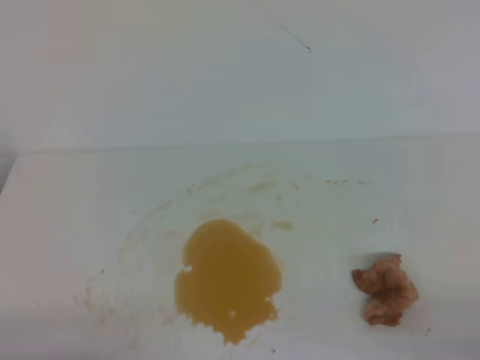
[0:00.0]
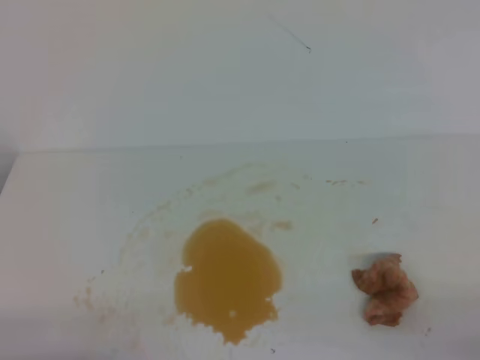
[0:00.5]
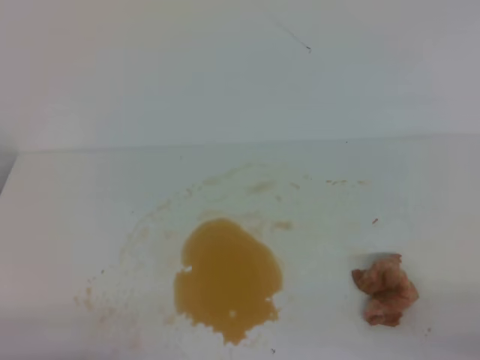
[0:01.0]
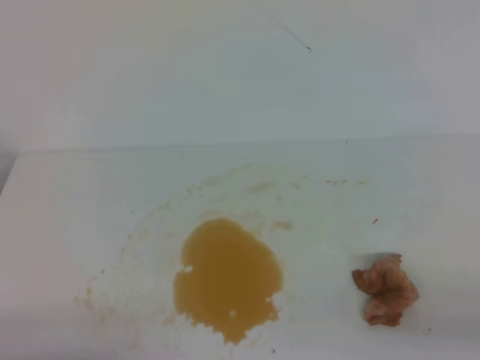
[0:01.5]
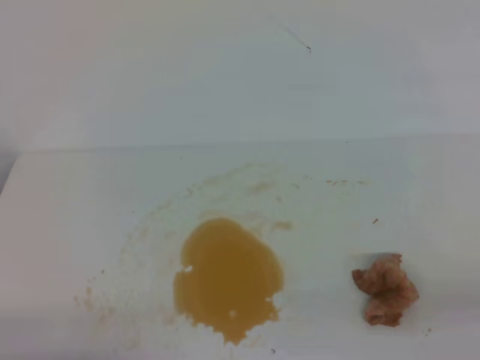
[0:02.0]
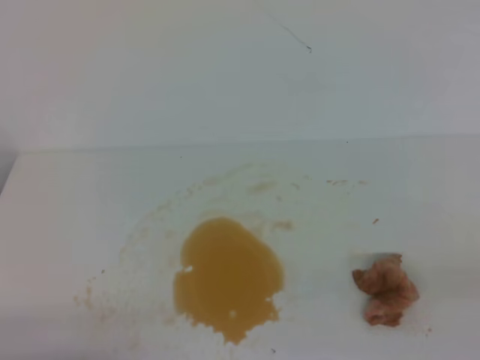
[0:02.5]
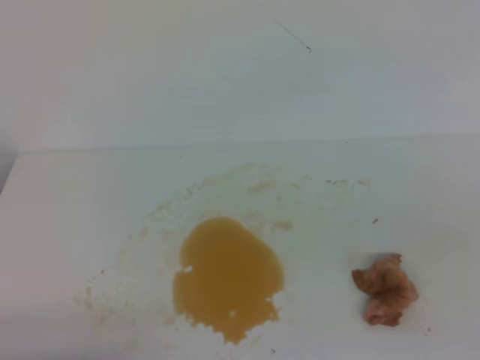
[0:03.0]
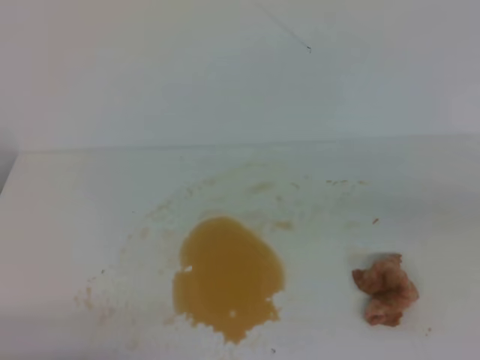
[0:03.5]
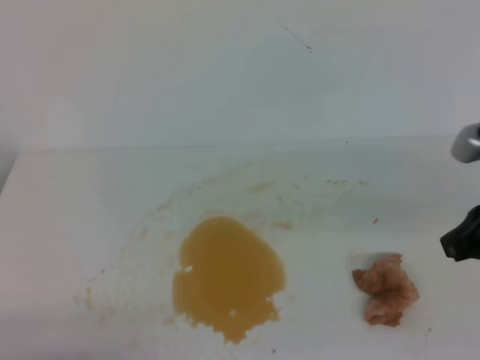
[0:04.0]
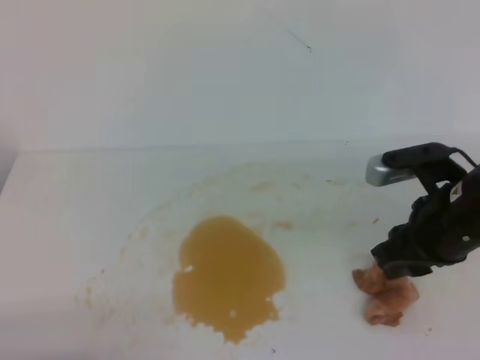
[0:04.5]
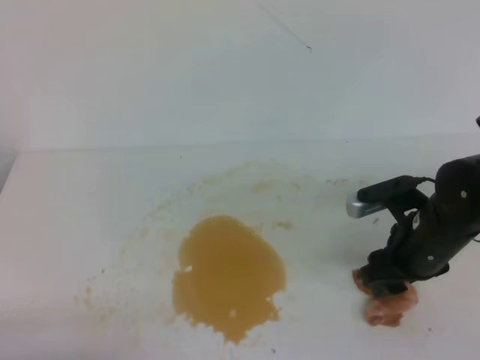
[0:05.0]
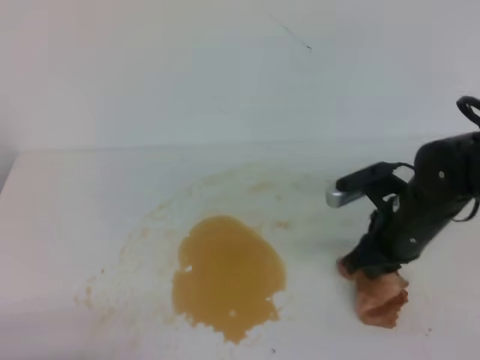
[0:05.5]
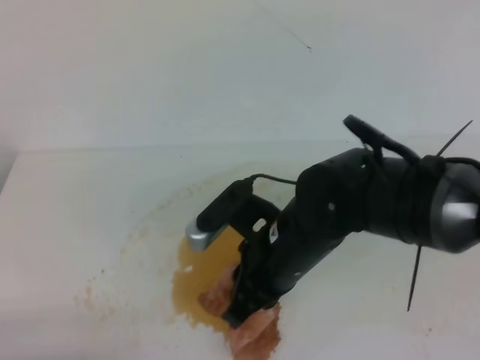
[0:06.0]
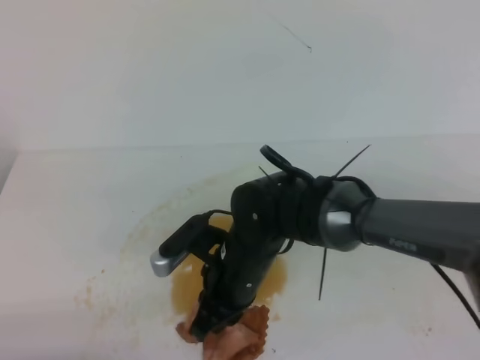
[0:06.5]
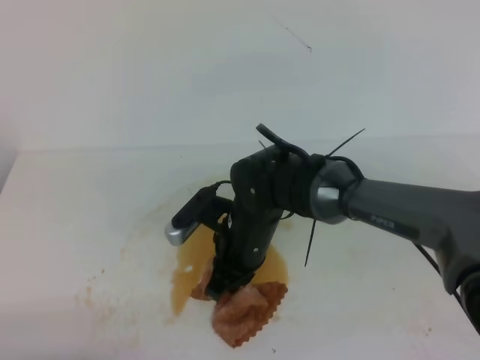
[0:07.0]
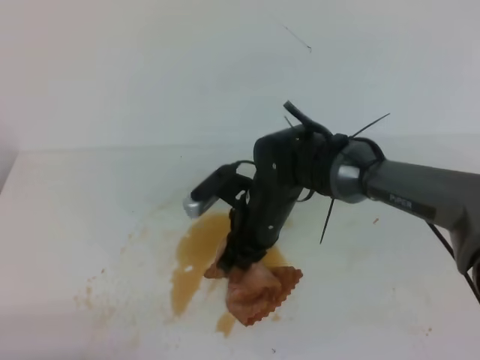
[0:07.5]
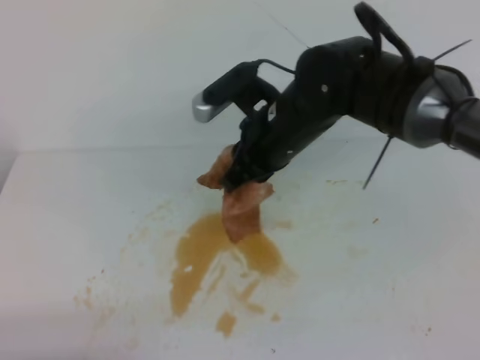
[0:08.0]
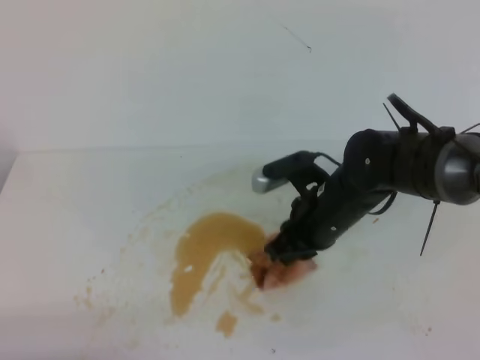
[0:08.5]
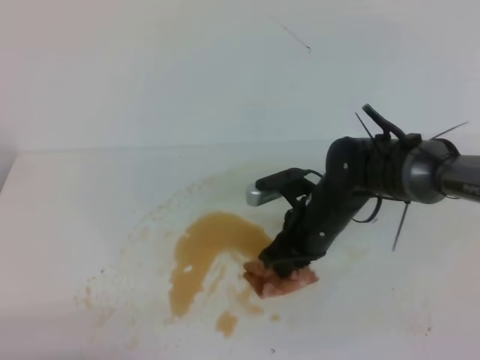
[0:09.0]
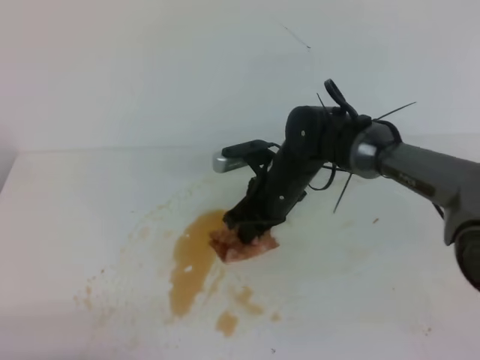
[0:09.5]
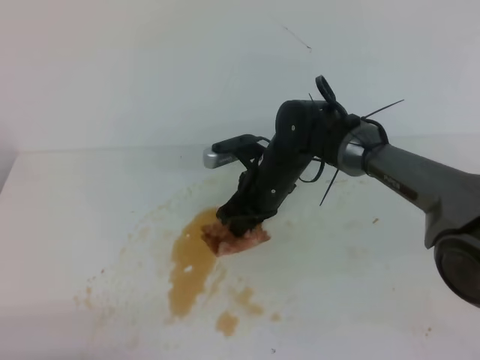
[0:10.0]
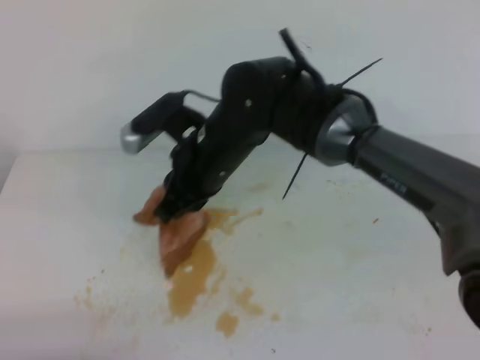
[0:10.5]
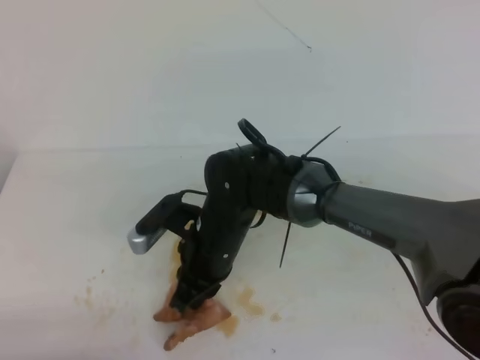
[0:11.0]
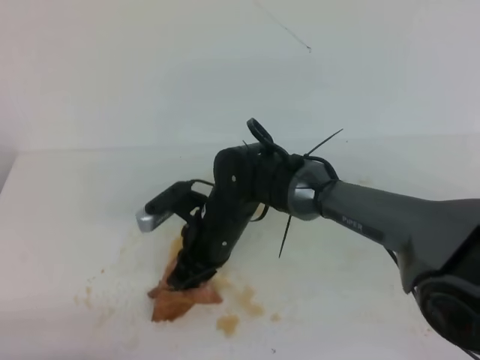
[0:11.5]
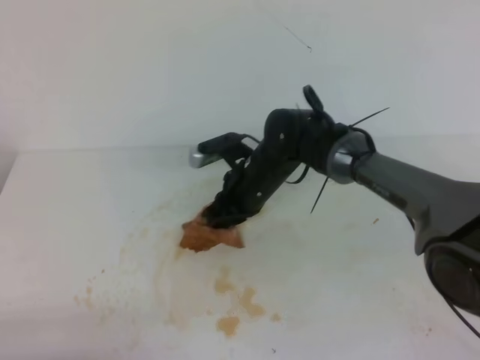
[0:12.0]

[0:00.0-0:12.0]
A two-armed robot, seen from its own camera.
0:02.0 to 0:04.0: The right gripper shifts approximately 20 cm forward, upward and to the left.
0:04.0 to 0:06.0: The right gripper goes some 20 cm to the left, and opens and closes again.
0:06.0 to 0:08.0: The right gripper goes about 10 cm forward.
0:08.0 to 0:10.0: The right gripper travels downward and forward by some 10 cm.
0:10.0 to 0:12.0: The right gripper moves some 10 cm upward and comes back.

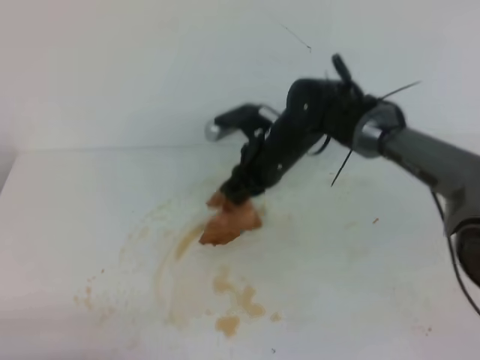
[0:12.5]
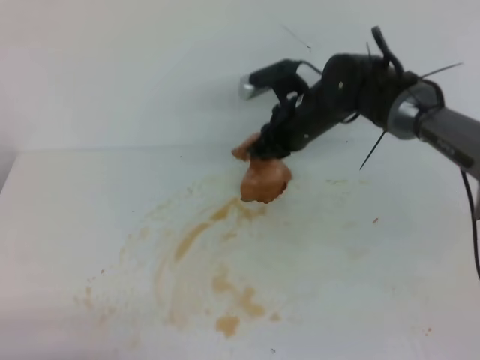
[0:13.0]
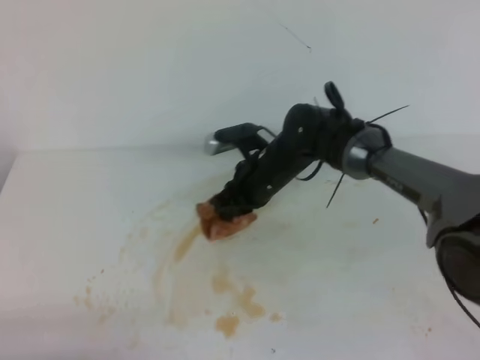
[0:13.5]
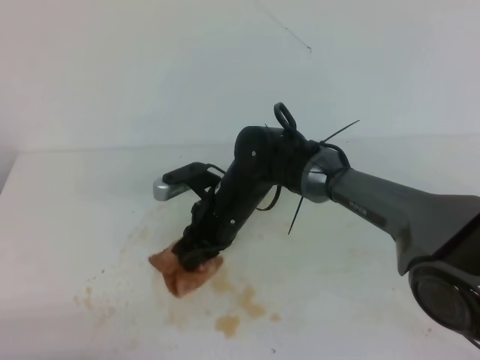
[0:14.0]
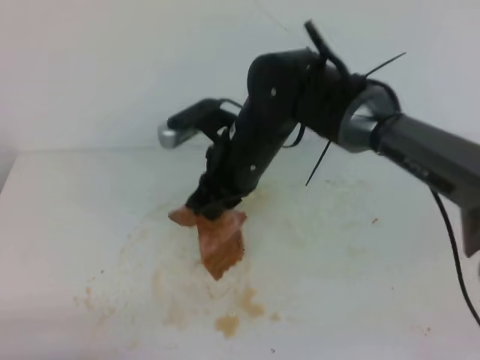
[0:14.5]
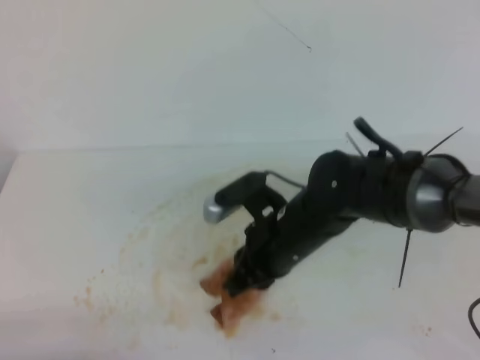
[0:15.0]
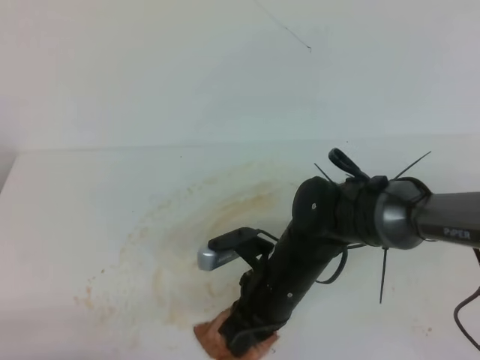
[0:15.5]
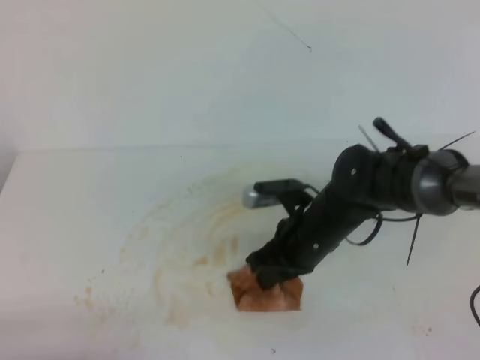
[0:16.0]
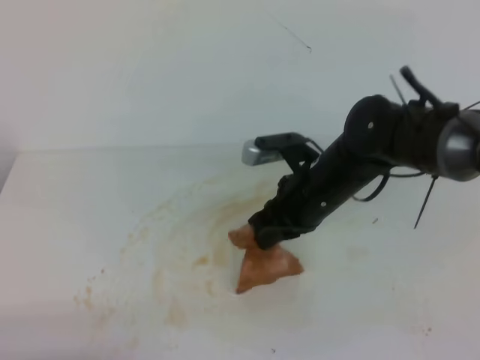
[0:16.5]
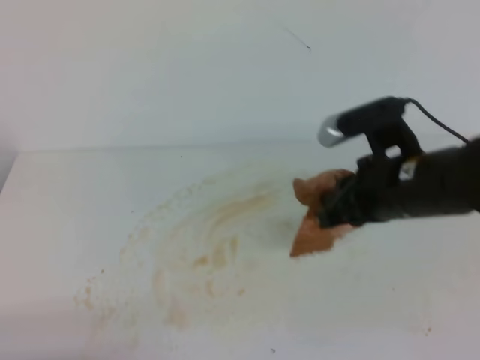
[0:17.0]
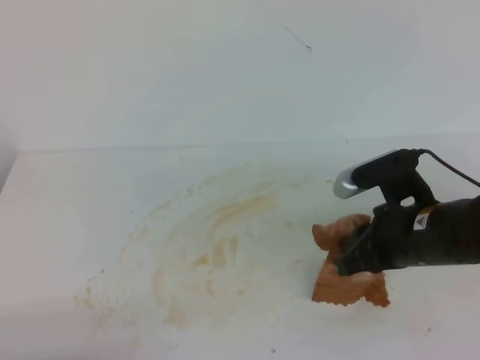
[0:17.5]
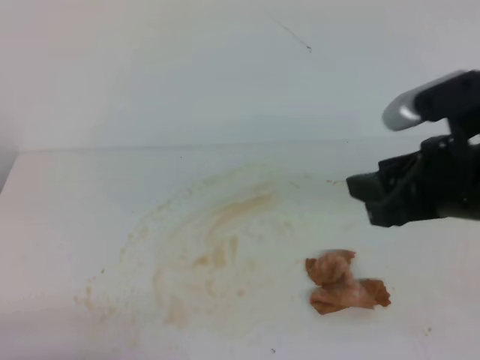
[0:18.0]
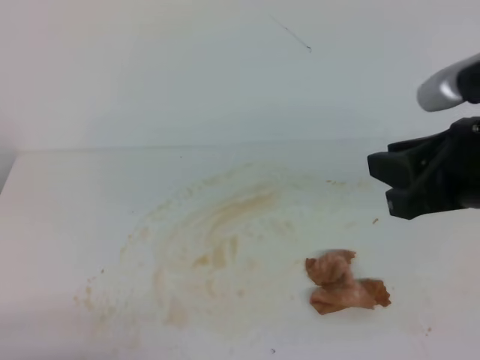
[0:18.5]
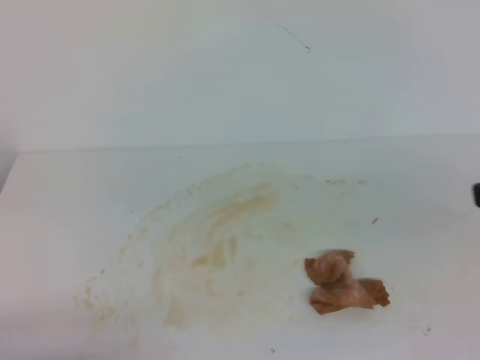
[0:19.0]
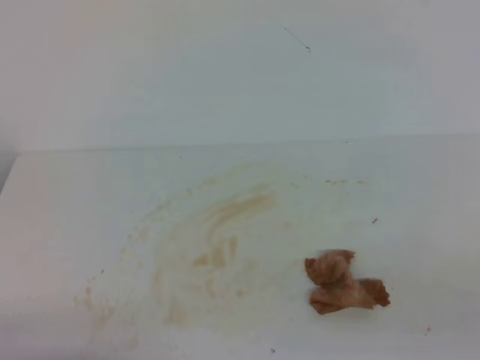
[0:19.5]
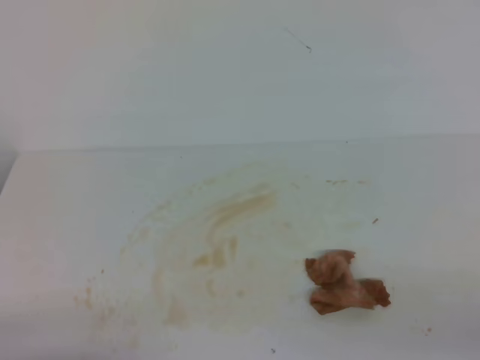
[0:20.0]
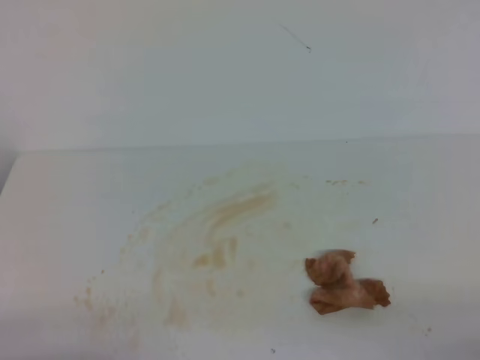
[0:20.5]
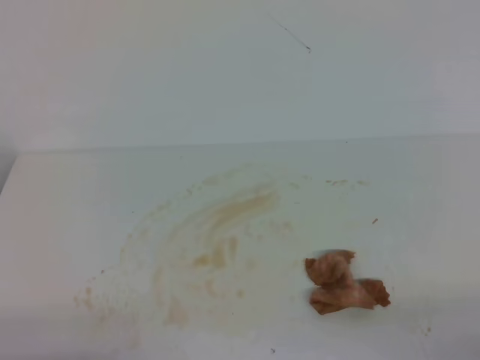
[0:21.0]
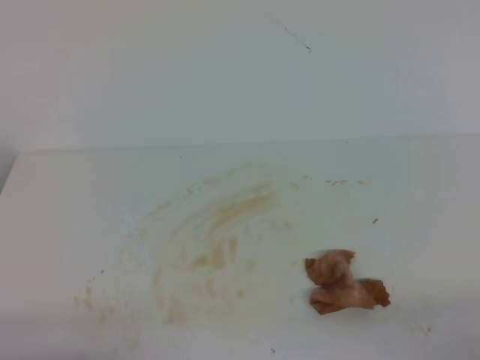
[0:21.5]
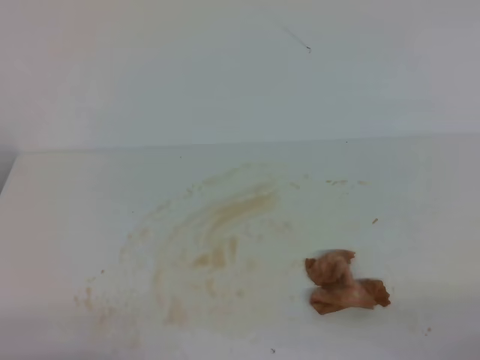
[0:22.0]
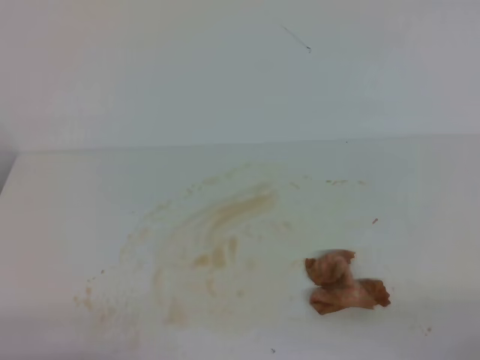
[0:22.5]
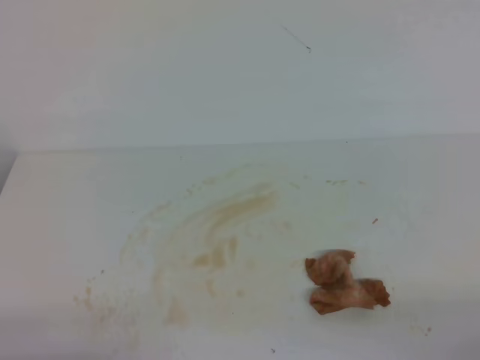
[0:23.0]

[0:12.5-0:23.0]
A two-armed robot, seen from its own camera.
0:12.5 to 0:14.5: The right gripper travels backward by some 10 cm, and goes downward and returns, some 10 cm each way.
0:14.5 to 0:16.5: The right gripper moves to the right, approximately 10 cm.
0:16.5 to 0:19.0: The right gripper shifts roughly 30 cm backward, to the right and upward, and opens up.
0:19.0 to 0:21.0: The right gripper goes about 20 cm downward, backward and to the right, and closes.
0:21.0 to 0:23.0: Both grippers stay put.

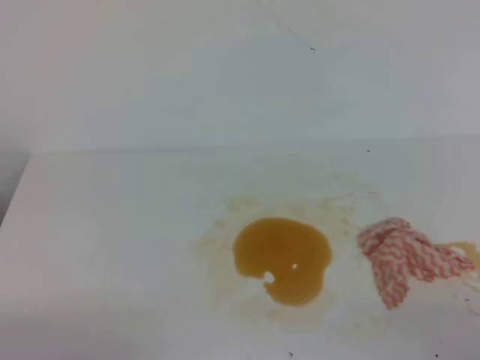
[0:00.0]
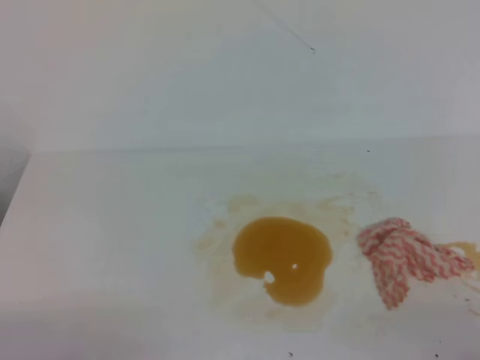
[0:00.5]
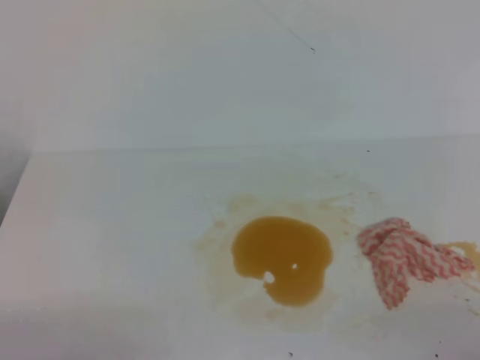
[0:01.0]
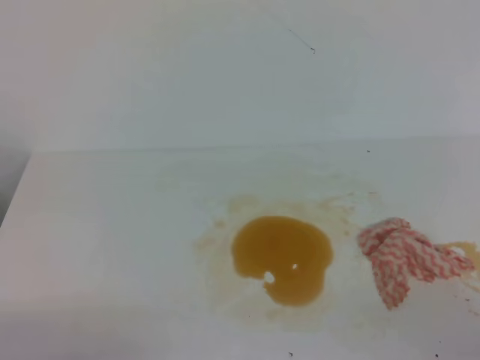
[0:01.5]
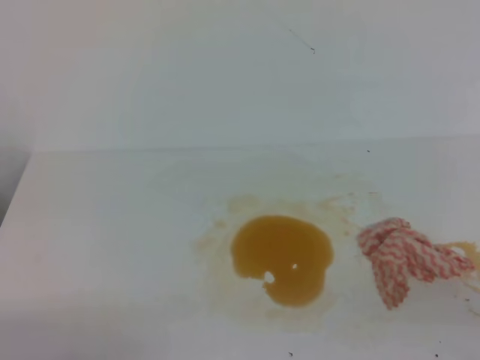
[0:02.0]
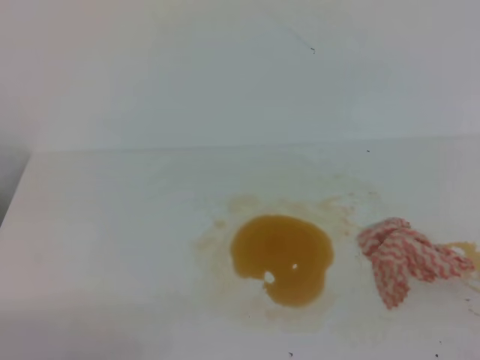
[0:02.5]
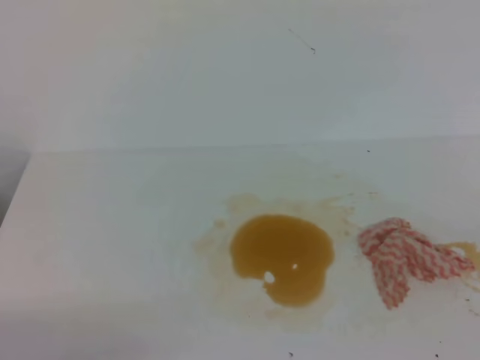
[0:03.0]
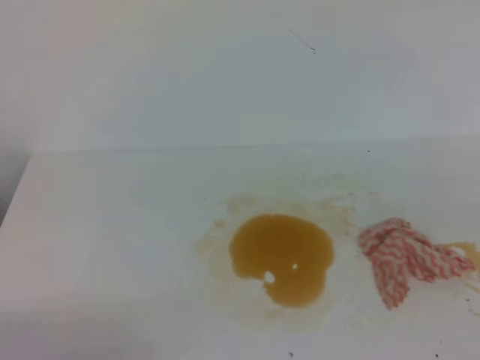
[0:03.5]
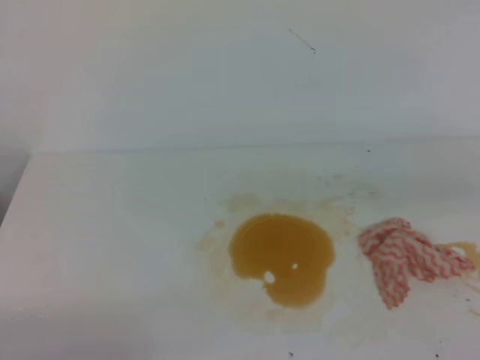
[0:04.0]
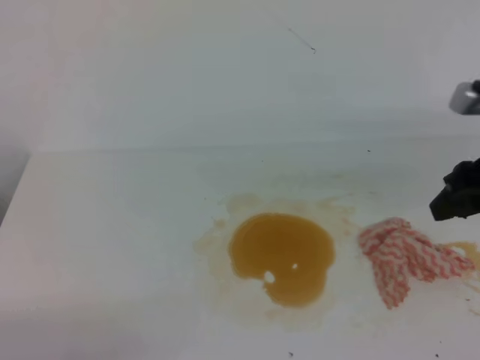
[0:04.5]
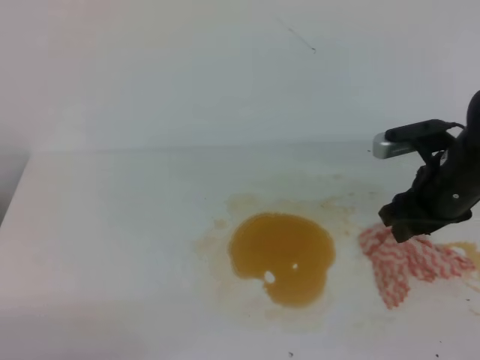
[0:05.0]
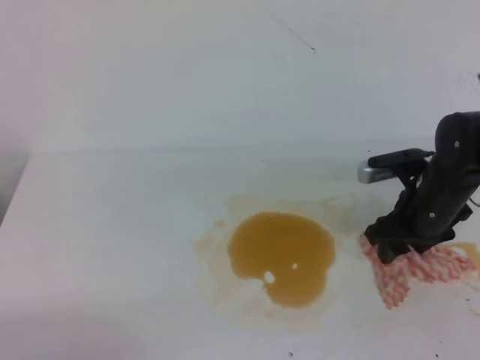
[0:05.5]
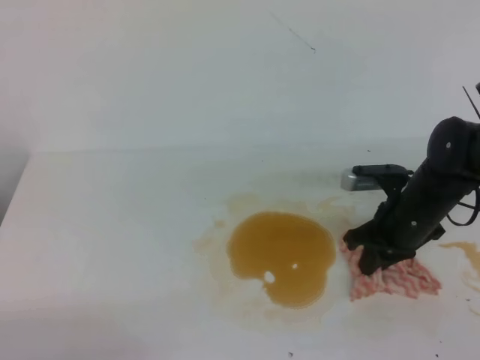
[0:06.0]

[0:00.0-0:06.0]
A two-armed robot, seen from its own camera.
0:04.0 to 0:06.0: The right gripper shifts about 25 cm downward, forward and to the left, and opens, then closes once more.
